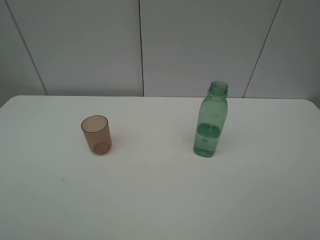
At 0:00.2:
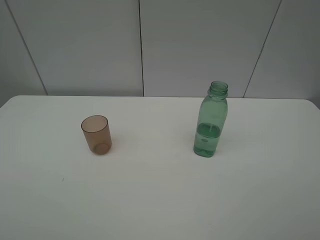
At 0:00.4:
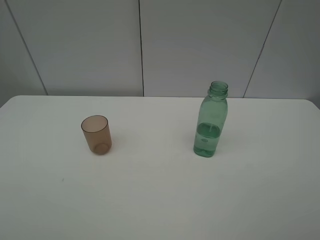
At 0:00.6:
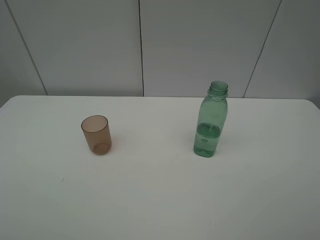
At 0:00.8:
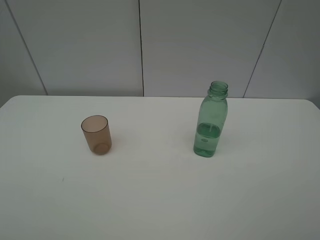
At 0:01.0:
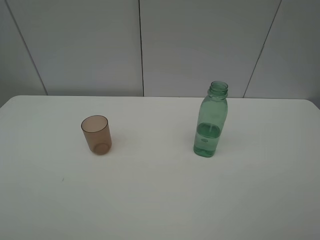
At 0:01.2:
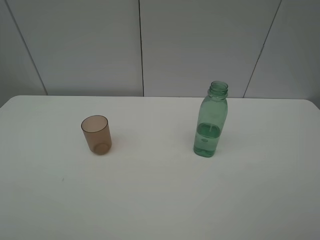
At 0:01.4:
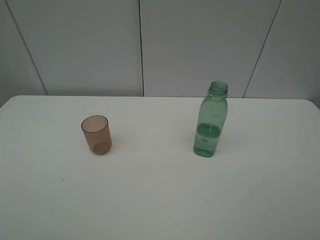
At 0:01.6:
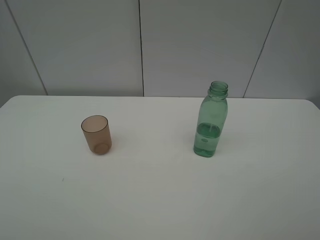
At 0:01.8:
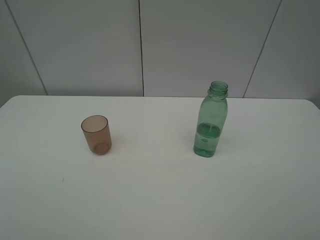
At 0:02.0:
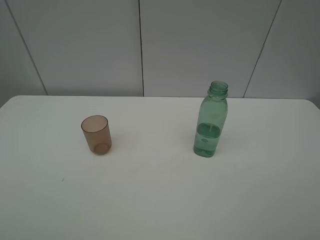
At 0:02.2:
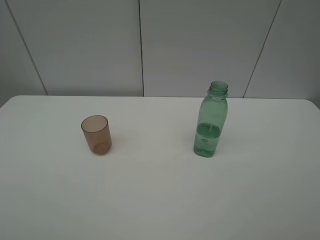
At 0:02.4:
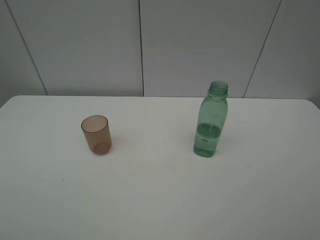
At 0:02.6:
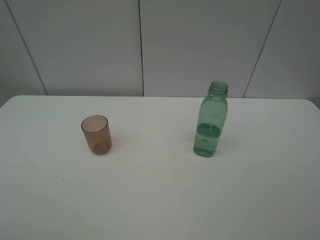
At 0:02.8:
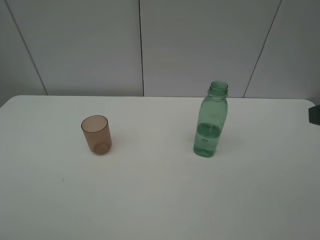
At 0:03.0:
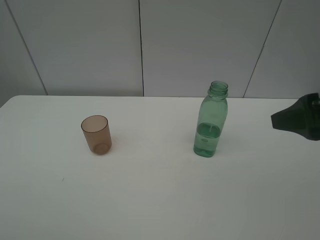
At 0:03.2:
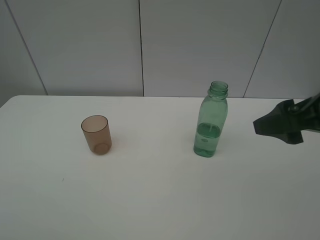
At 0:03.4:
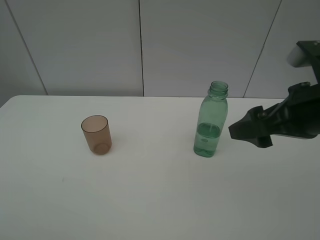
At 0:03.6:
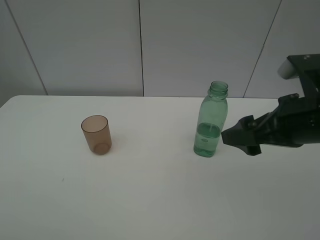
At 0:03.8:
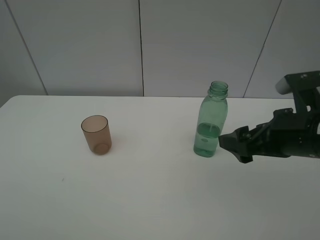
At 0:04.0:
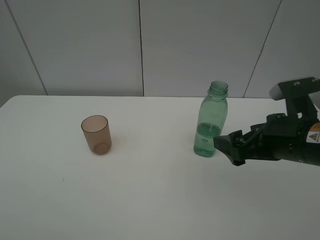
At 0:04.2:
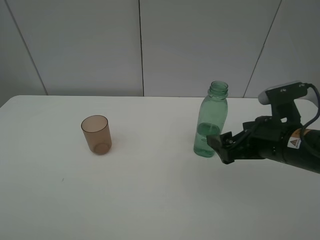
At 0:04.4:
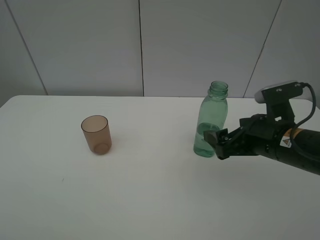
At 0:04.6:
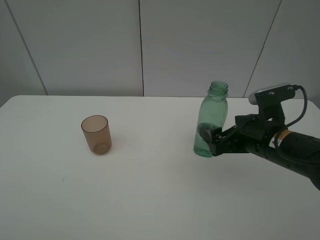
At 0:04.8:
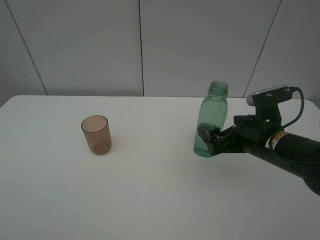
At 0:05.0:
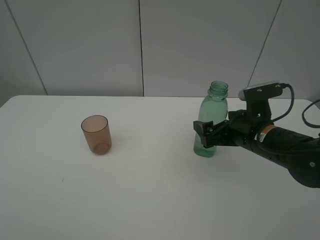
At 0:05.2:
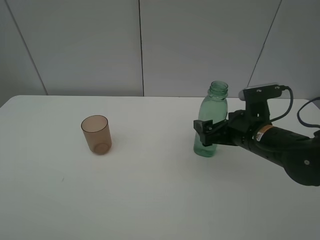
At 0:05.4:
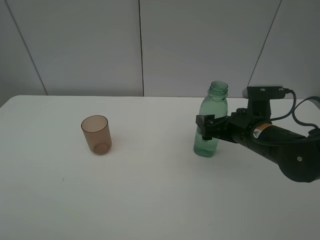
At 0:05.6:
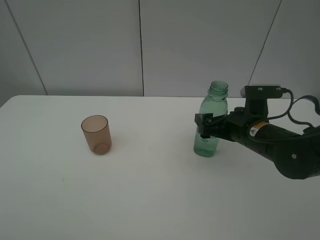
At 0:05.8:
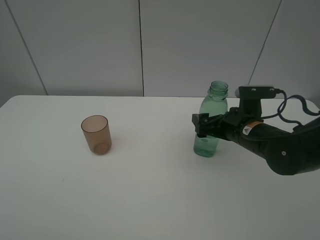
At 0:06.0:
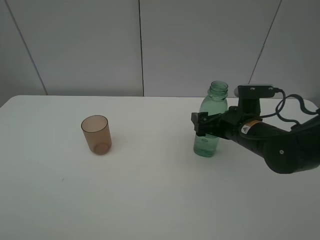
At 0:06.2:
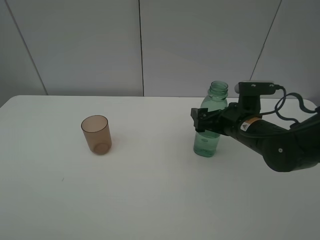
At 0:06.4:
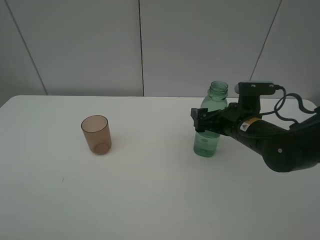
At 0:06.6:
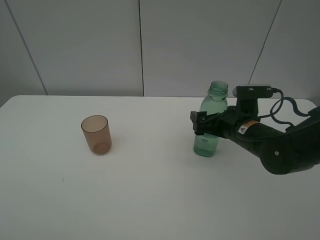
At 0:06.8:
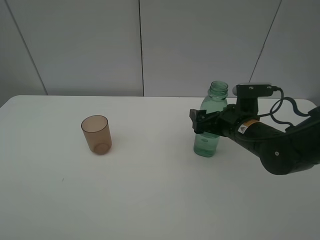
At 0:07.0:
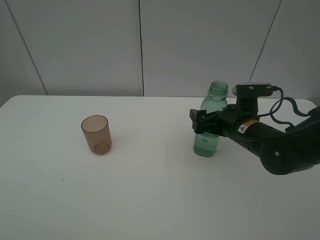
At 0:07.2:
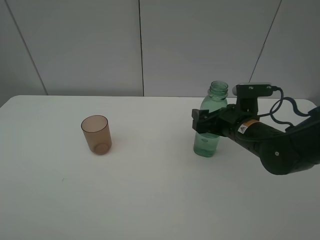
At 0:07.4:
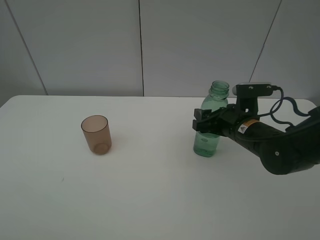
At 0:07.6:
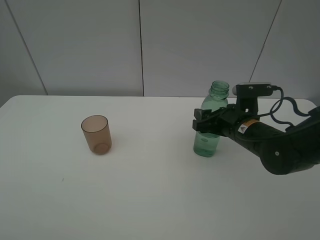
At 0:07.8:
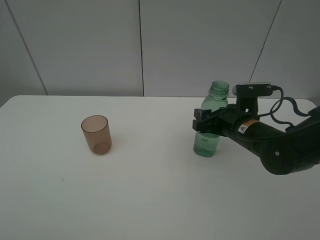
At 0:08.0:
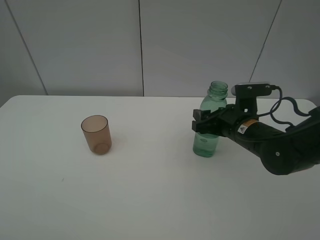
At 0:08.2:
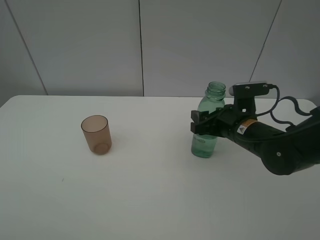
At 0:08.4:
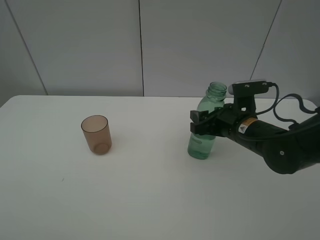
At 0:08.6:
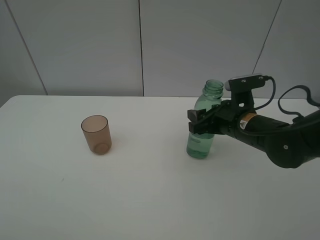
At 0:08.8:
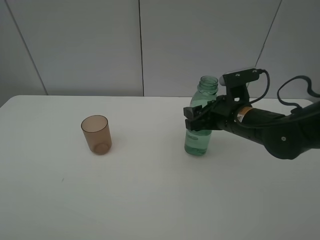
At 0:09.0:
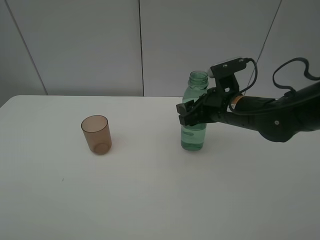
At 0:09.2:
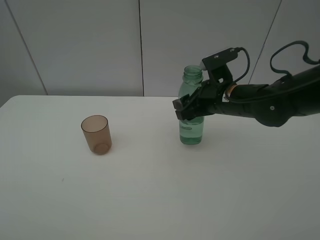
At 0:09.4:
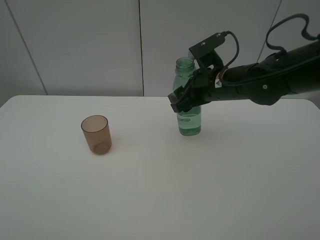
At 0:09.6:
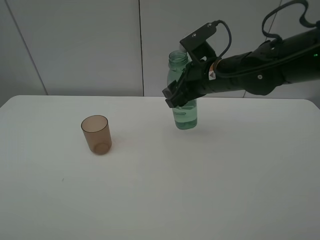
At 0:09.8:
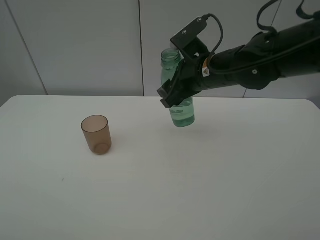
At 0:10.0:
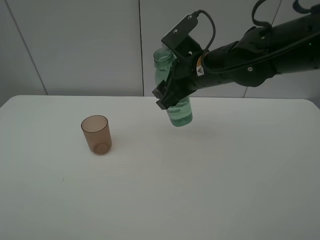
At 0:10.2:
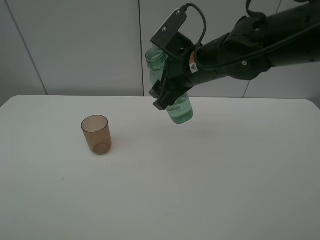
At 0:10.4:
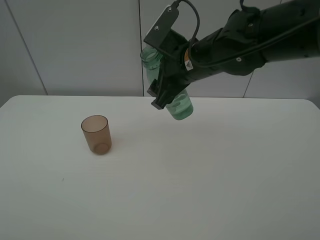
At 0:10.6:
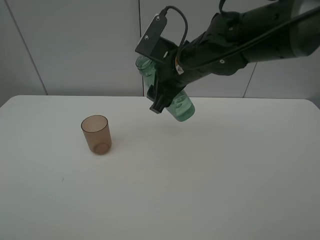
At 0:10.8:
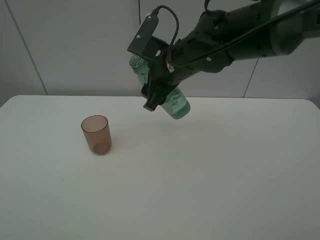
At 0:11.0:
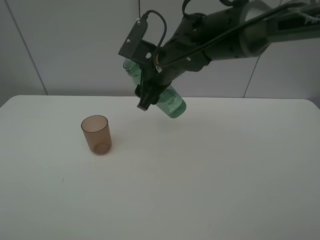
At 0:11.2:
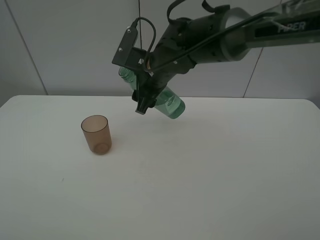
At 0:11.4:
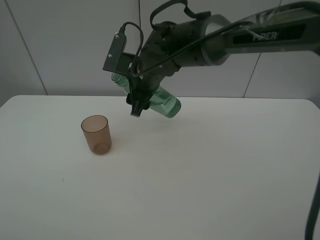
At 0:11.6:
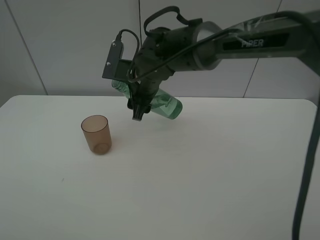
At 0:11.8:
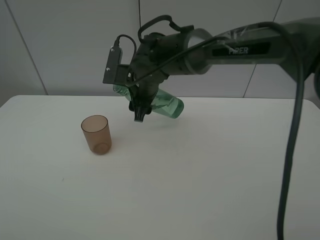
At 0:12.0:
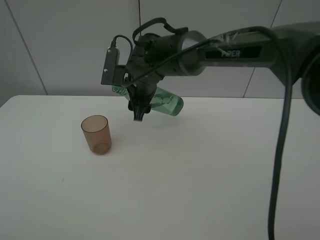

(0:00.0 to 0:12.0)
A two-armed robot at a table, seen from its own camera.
Task of the whole recording: pick up the bottle filled with water and pour it into the pink cup.
Step, 0:00.0 - 0:07.6: Grasp the green bottle with the right gripper.
0:00.0 - 0:01.6: The two grippers keep their place.
0:01.6 - 0:03.0: The right gripper heads forward and to the left, covering some 15 cm.
0:03.0 - 0:04.4: The right gripper heads downward, to the left and forward, covering some 15 cm.
0:04.4 - 0:06.0: The right gripper heads forward, covering approximately 5 cm.
0:06.0 - 0:07.6: The right gripper closes up.
0:07.6 - 0:09.0: The right gripper ends up about 5 cm from where it was.
0:09.0 - 0:10.4: The right gripper travels to the left and upward by approximately 10 cm.
0:10.4 - 0:12.0: The right gripper moves to the left, downward and forward, roughly 15 cm.

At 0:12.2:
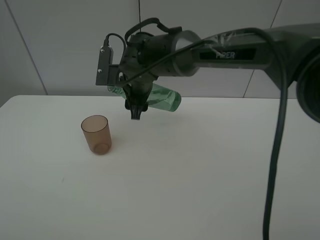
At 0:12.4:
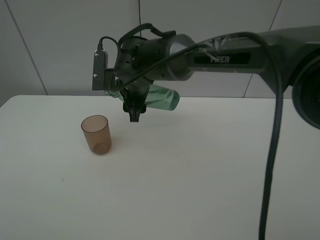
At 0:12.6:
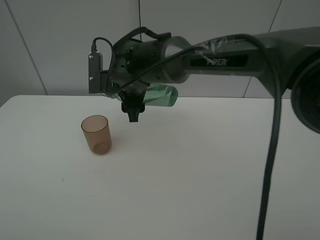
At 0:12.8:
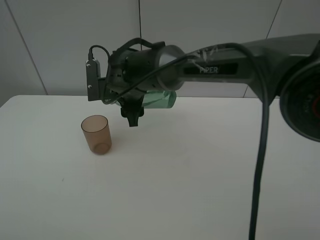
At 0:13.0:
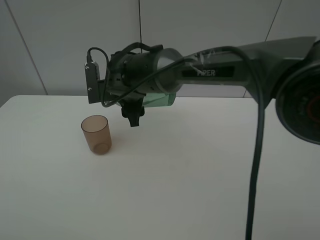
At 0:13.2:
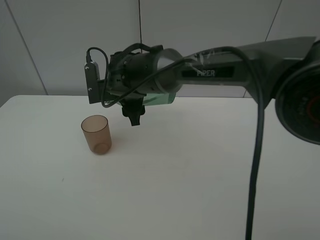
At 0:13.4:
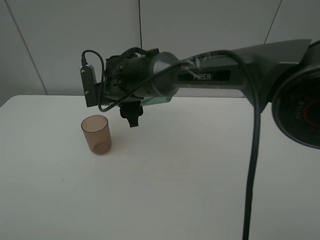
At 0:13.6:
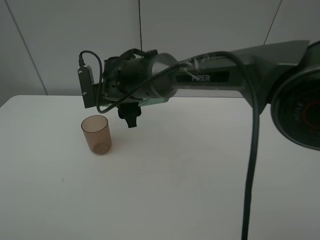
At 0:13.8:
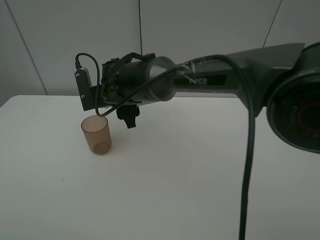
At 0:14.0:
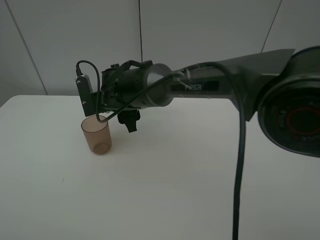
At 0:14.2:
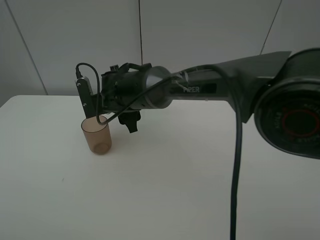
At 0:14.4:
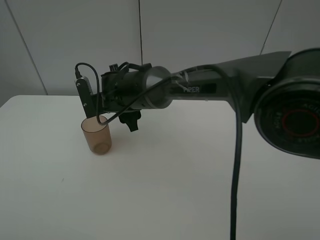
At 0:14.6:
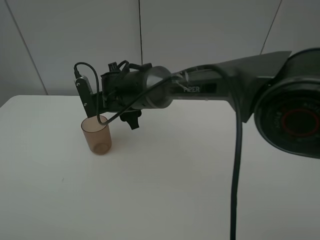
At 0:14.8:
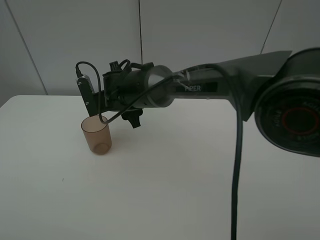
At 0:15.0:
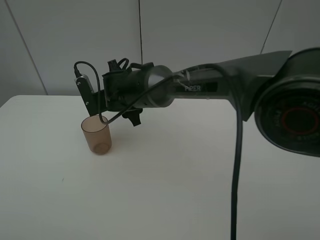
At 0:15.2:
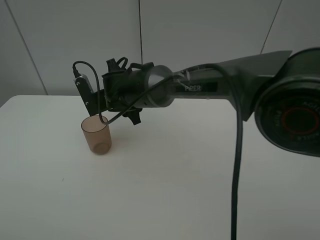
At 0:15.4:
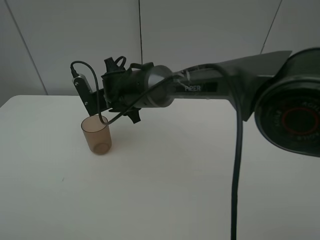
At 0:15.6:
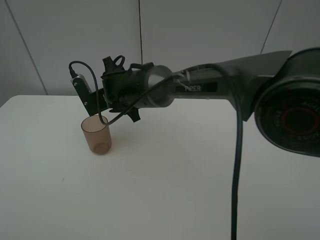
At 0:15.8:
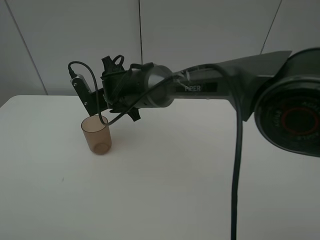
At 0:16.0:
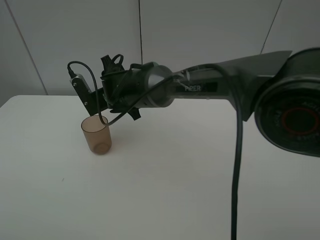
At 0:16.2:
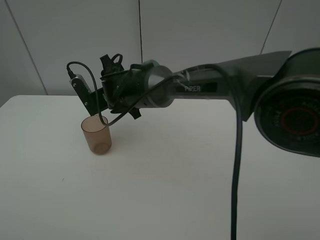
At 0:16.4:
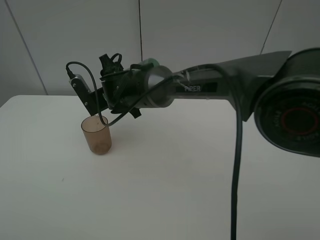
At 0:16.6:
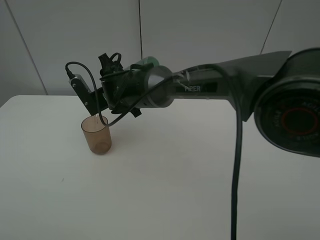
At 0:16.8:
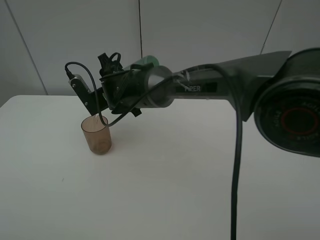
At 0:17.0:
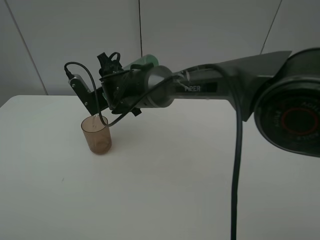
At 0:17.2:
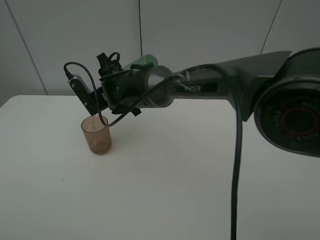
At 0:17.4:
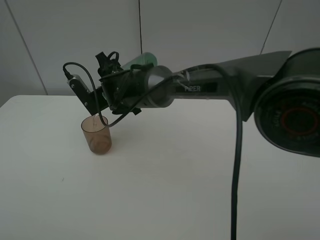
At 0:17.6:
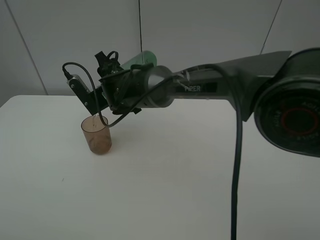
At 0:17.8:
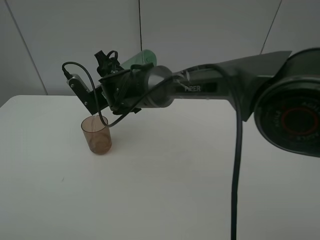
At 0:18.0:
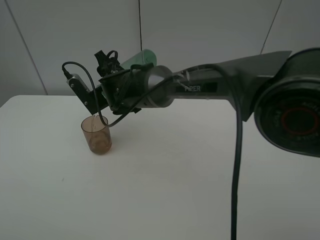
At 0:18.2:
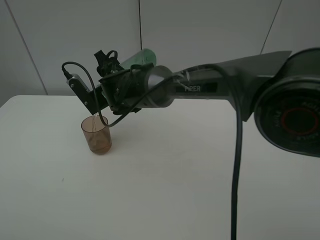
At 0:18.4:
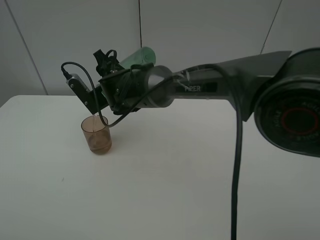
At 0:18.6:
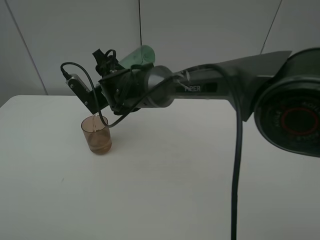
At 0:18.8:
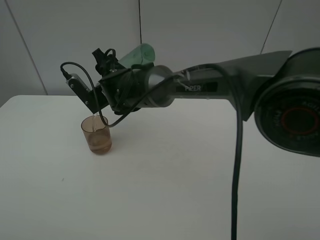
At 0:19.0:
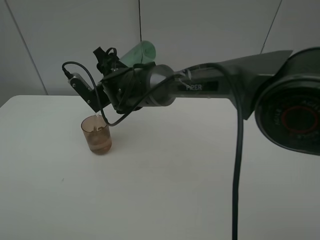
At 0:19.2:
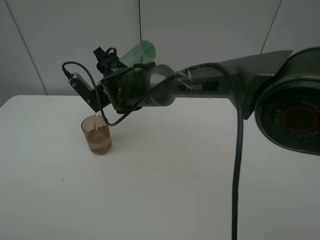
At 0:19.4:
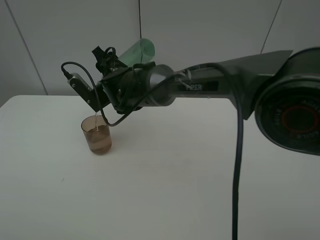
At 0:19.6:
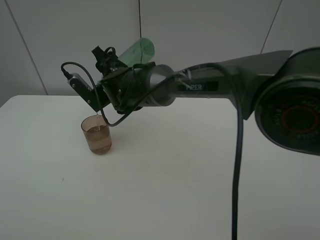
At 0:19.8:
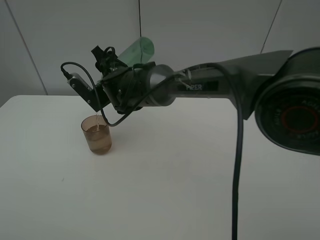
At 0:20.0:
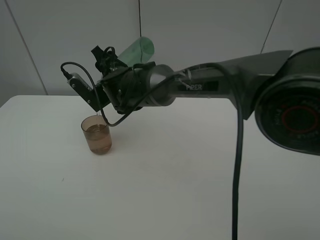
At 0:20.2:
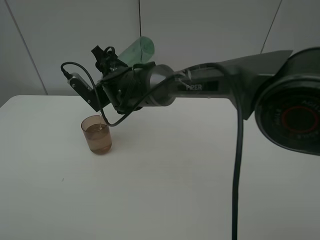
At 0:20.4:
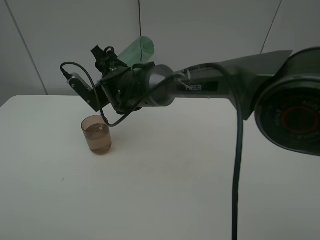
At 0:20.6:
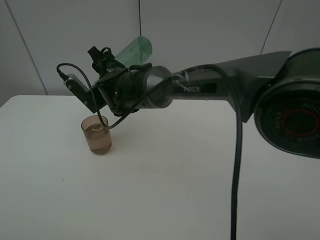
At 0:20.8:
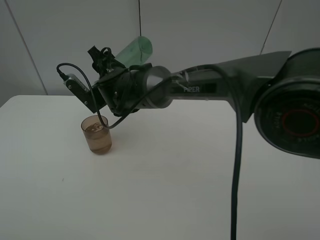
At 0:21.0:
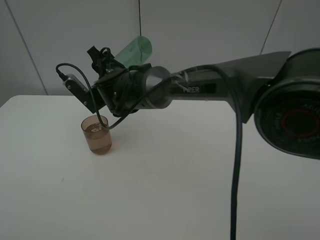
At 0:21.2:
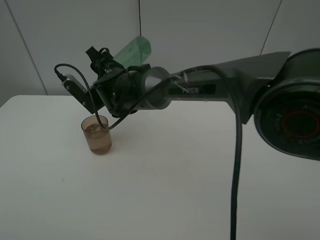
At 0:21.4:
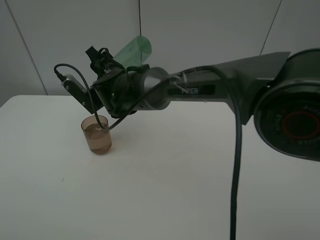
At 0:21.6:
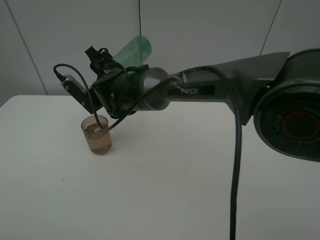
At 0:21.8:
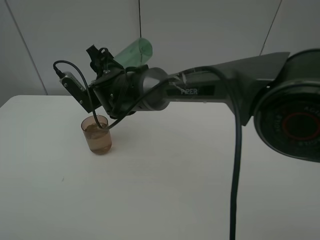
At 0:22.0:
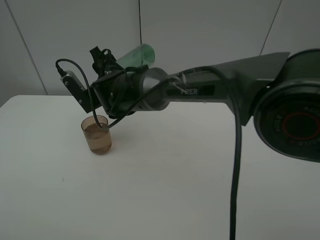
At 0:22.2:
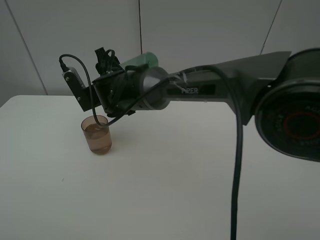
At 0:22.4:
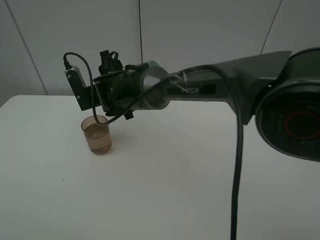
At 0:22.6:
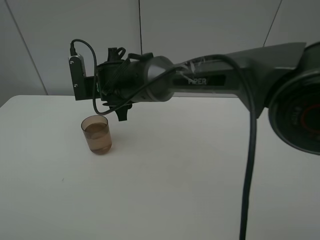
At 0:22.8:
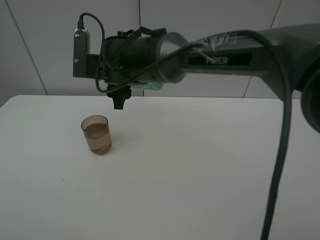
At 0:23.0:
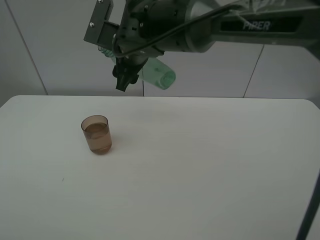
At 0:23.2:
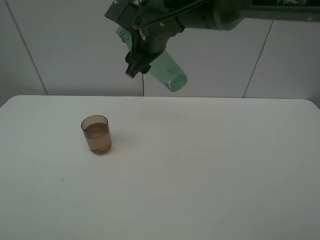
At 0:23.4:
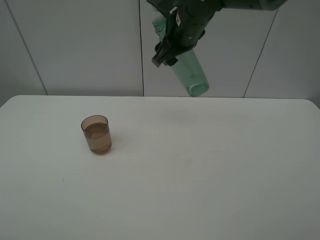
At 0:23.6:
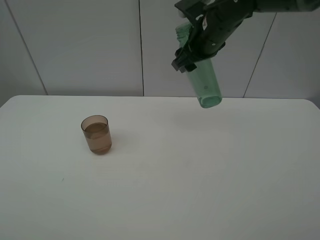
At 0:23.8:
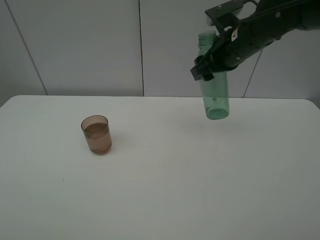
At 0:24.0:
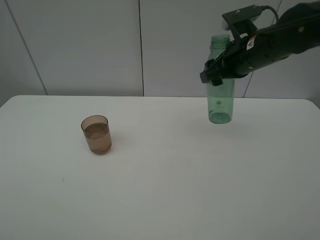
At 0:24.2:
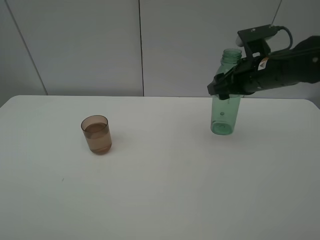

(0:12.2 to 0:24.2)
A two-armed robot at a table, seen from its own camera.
Task of the whole recording: pick up the bottle filled with water and pour it into the pink cup.
Step, 0:12.2 - 0:22.8: Pour water from green bottle to pink cup with the right gripper.
0:13.8 - 0:15.2: The grippers make only small movements.
0:15.2 - 0:18.2: The grippers make only small movements.
0:18.2 - 0:19.8: There are only small adjustments of the grippers.
0:19.8 - 0:21.2: Both grippers stay put.
0:22.6 - 0:24.2: The right gripper moves to the right, roughly 30 cm.
